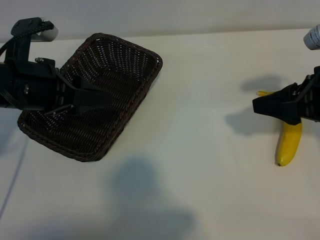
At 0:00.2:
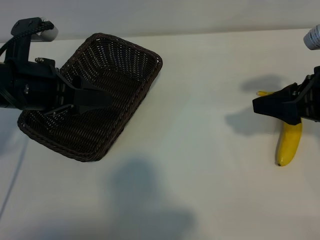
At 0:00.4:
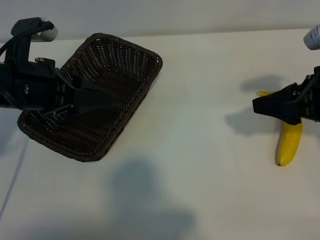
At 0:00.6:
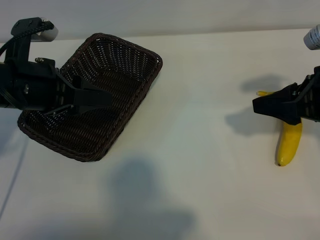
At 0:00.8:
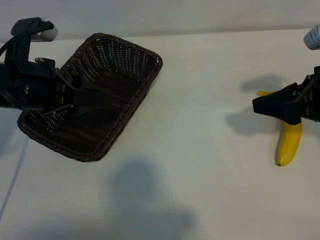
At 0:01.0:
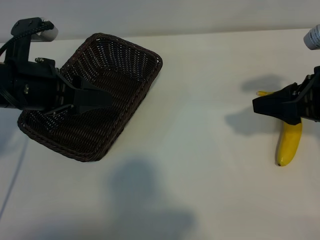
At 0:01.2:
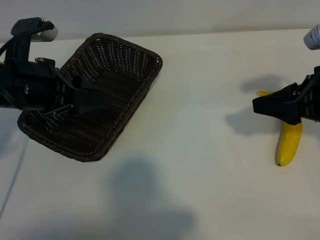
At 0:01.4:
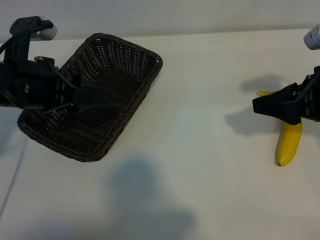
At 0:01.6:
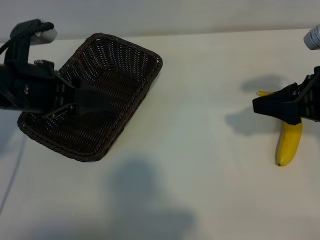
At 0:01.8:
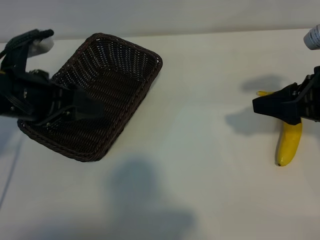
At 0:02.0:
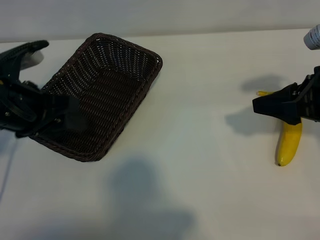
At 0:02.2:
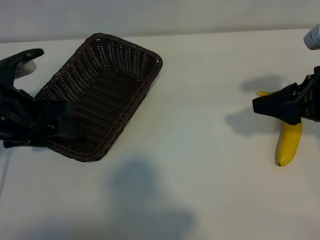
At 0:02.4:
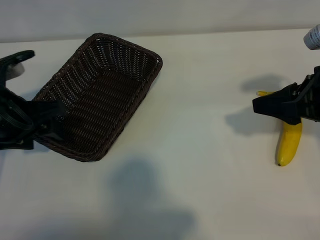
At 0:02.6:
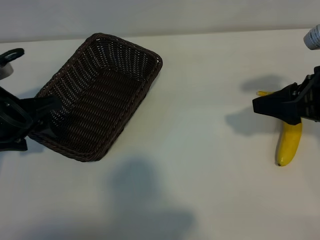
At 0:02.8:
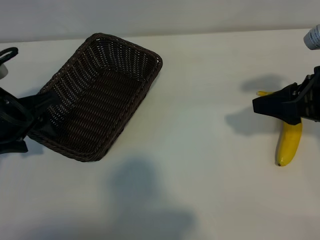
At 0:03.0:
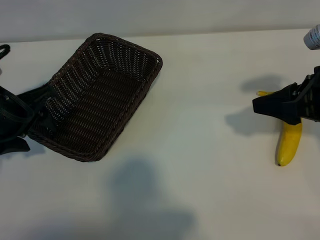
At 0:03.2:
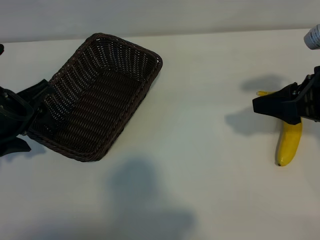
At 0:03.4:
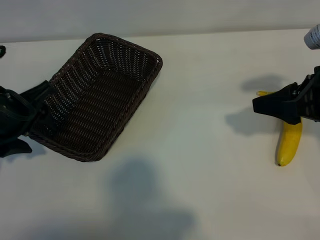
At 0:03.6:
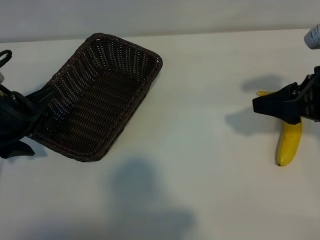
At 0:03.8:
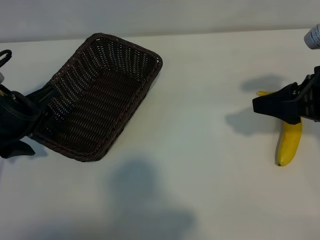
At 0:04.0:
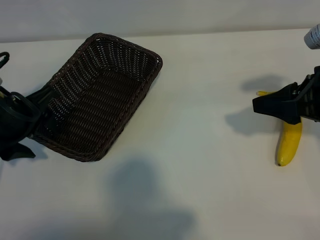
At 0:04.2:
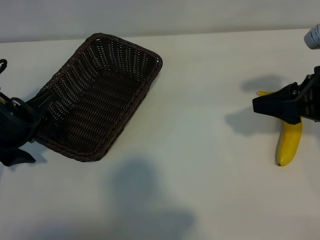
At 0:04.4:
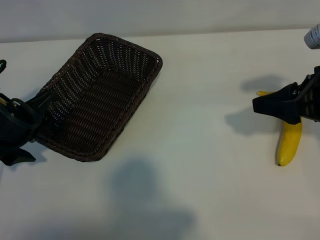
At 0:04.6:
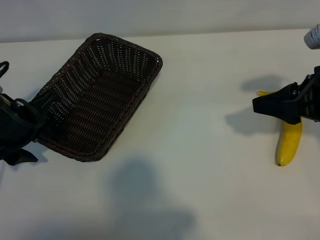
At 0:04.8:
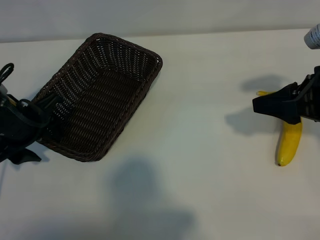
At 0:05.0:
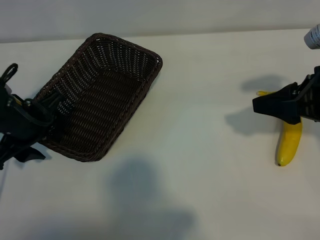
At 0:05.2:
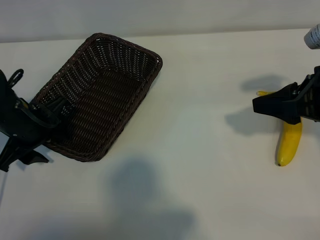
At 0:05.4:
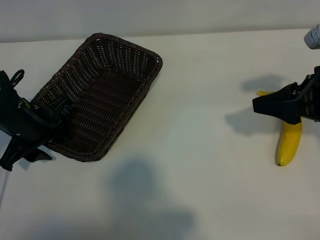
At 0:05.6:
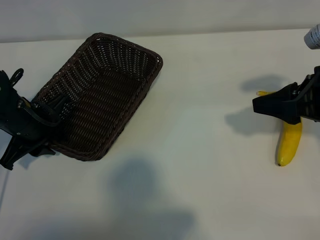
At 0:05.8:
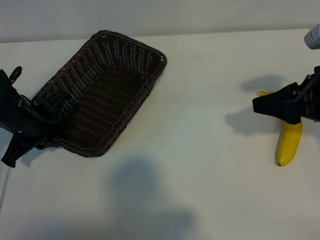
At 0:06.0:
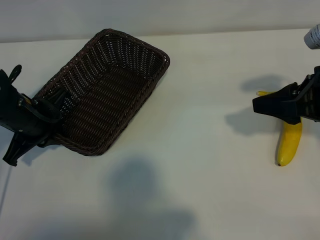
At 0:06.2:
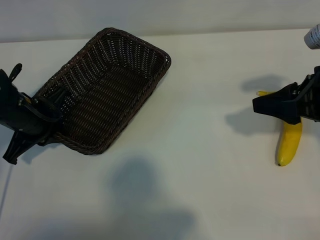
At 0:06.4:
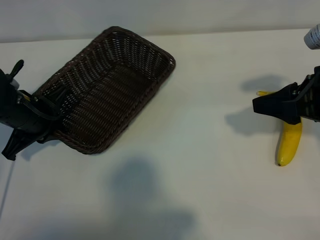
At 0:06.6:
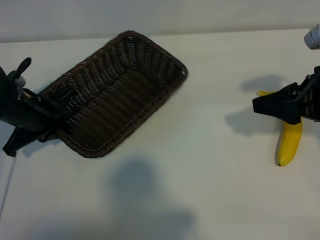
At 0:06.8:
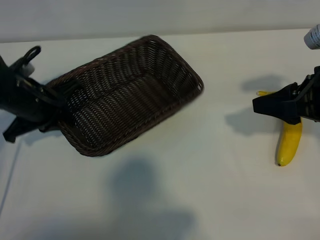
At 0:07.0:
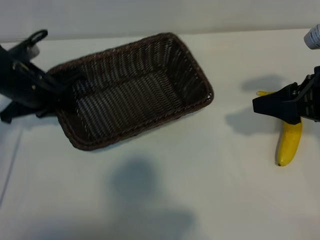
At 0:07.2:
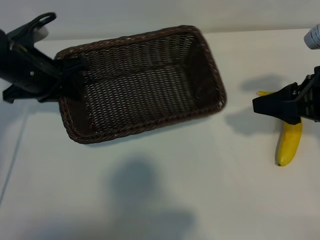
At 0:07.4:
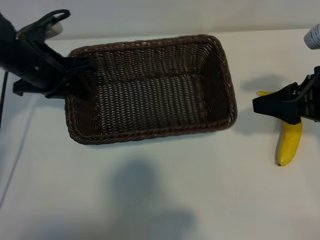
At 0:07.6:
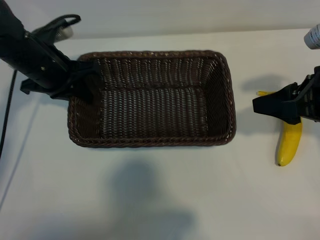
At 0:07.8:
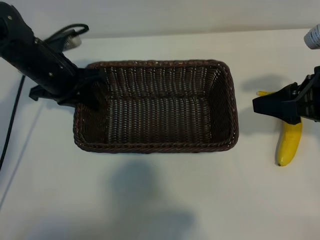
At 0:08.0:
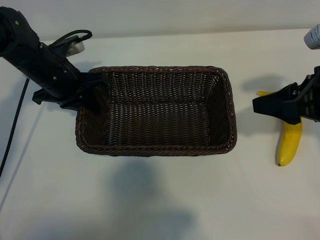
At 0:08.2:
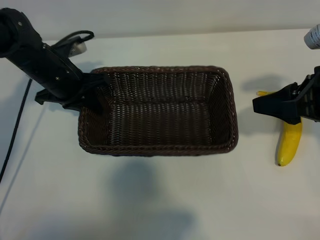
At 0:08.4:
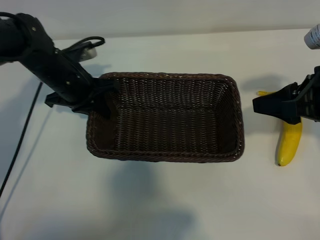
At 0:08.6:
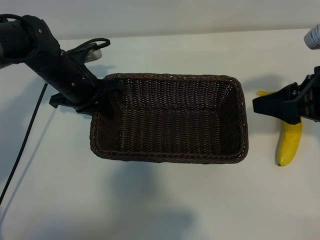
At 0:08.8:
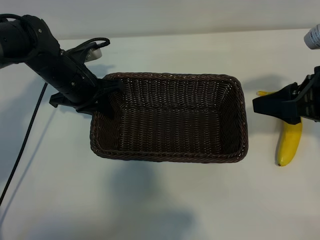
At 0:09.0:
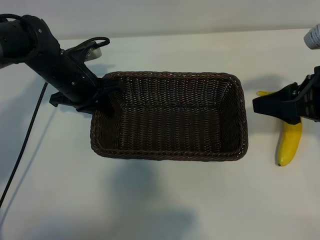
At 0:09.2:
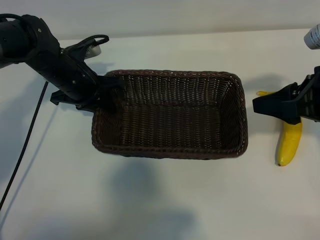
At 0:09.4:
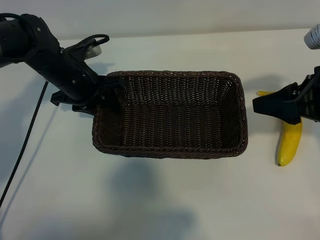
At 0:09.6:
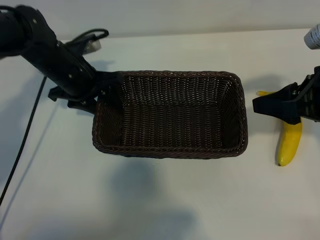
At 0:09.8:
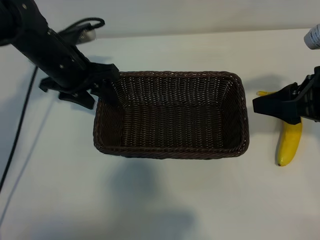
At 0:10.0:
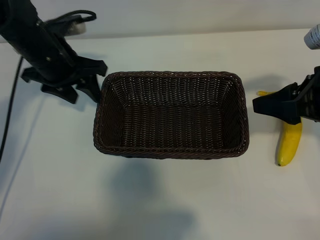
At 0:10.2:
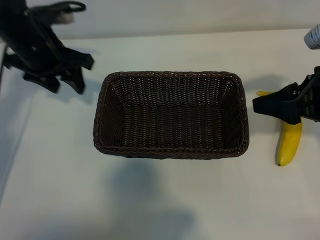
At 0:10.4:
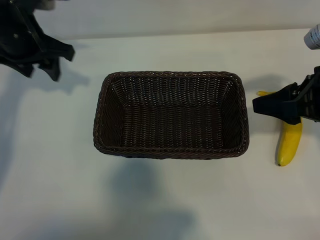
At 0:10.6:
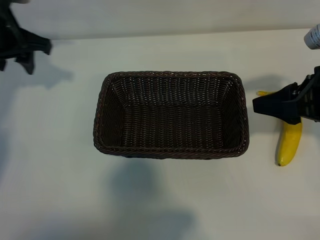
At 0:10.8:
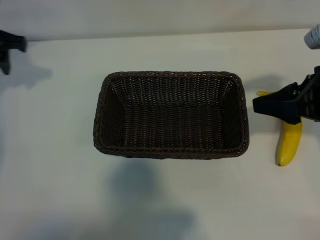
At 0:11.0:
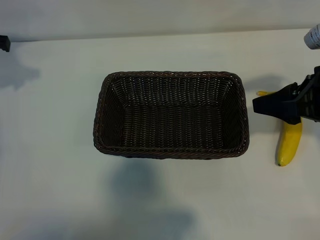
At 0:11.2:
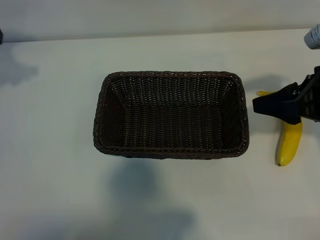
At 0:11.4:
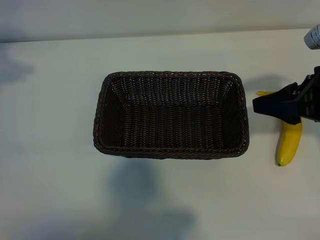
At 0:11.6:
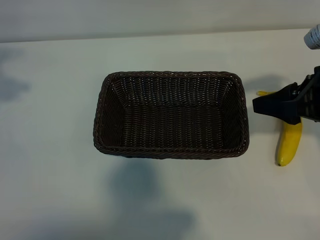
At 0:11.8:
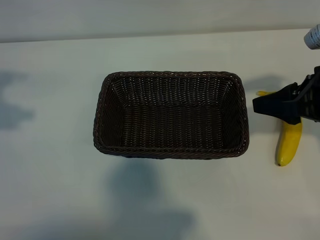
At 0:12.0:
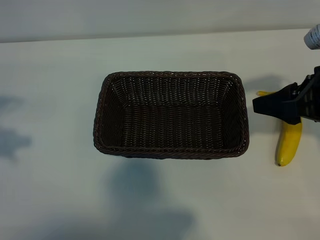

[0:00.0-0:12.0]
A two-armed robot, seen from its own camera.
Task of the whole recording: pick up the banana and put it into the basket.
Step, 0:01.4 to 0:06.2: Grasp the basket with the left gripper.
Step, 0:06.6 to 0:09.8: Place the basket in the center of the table with the left gripper.

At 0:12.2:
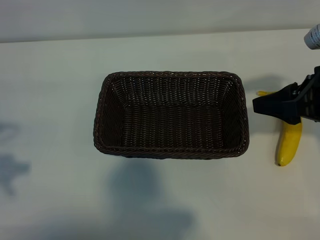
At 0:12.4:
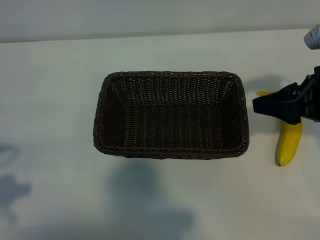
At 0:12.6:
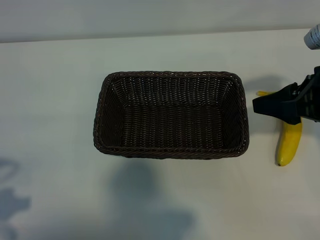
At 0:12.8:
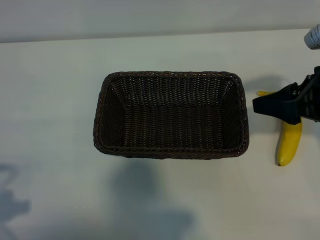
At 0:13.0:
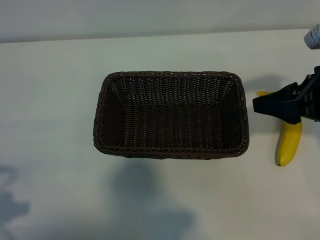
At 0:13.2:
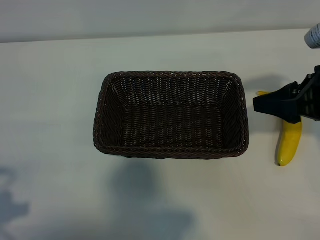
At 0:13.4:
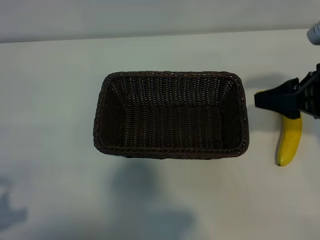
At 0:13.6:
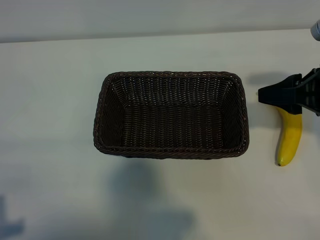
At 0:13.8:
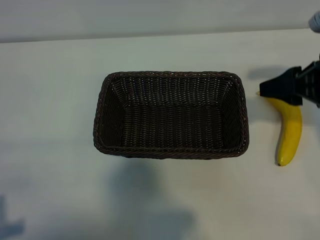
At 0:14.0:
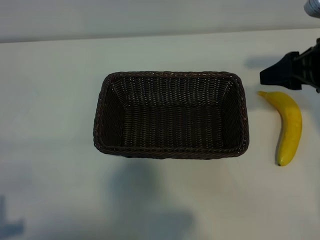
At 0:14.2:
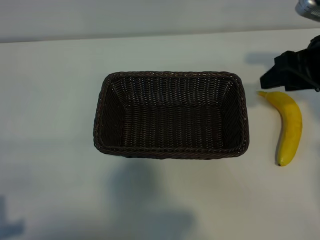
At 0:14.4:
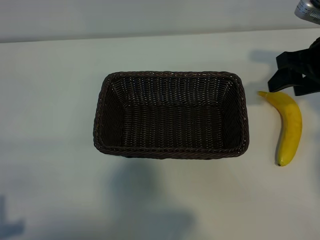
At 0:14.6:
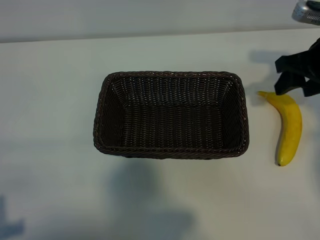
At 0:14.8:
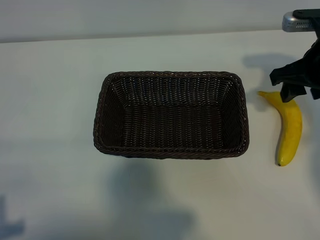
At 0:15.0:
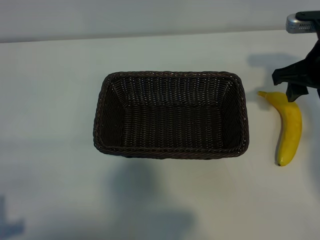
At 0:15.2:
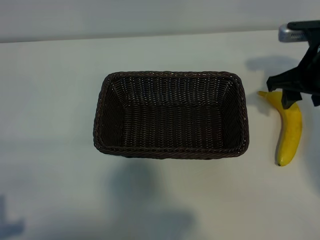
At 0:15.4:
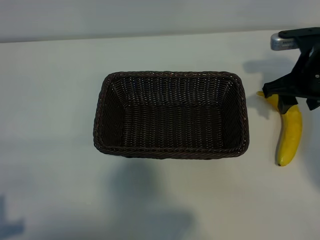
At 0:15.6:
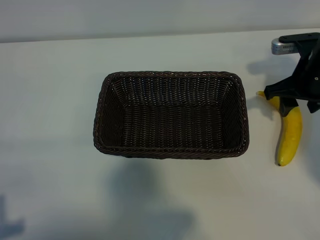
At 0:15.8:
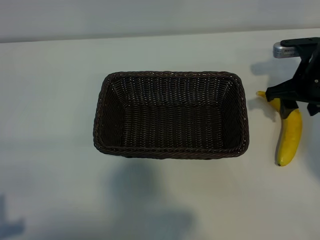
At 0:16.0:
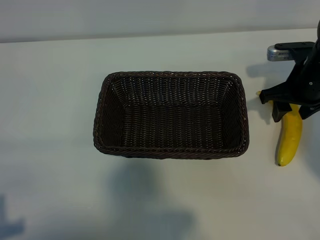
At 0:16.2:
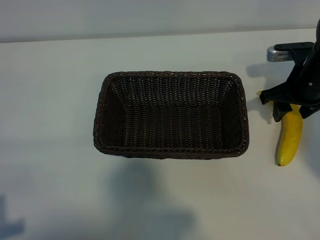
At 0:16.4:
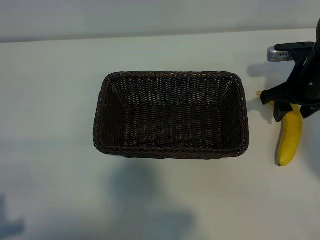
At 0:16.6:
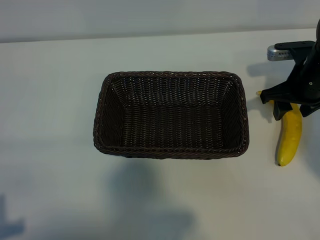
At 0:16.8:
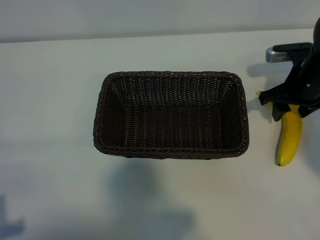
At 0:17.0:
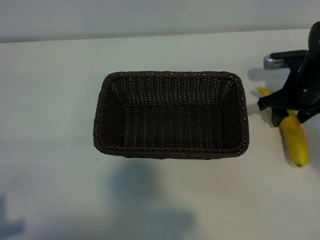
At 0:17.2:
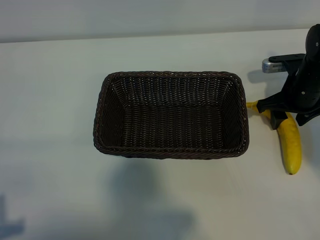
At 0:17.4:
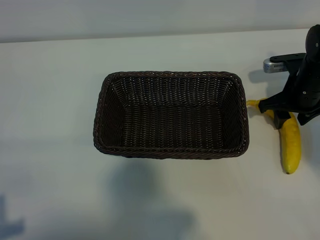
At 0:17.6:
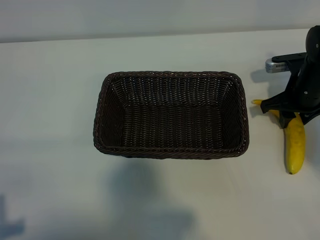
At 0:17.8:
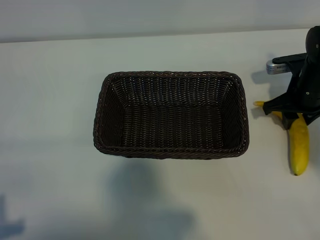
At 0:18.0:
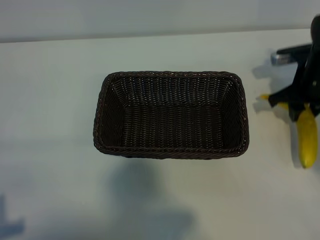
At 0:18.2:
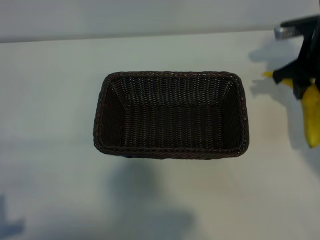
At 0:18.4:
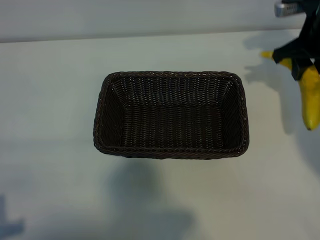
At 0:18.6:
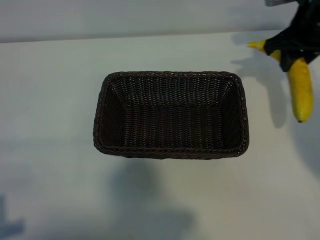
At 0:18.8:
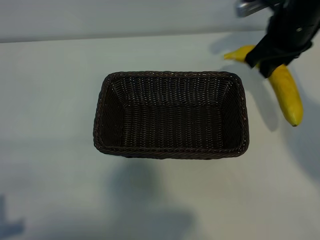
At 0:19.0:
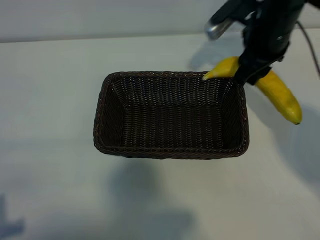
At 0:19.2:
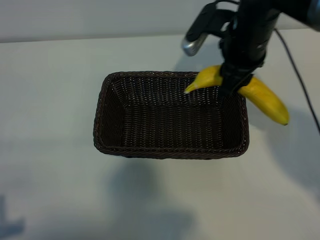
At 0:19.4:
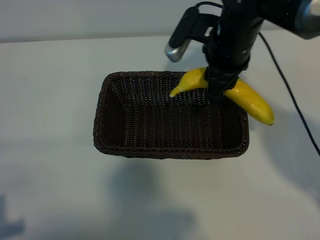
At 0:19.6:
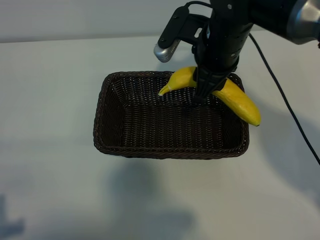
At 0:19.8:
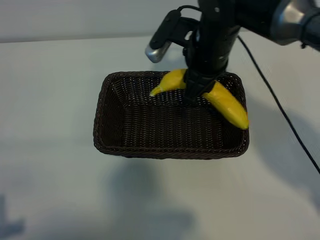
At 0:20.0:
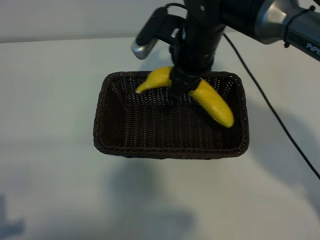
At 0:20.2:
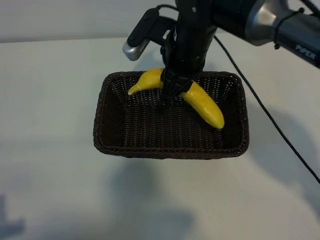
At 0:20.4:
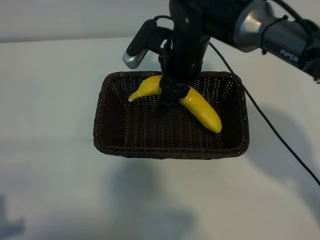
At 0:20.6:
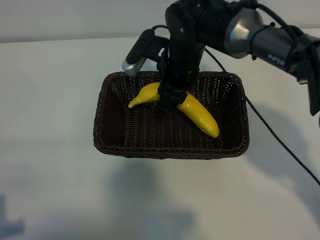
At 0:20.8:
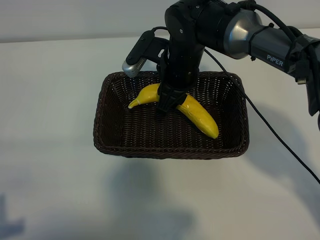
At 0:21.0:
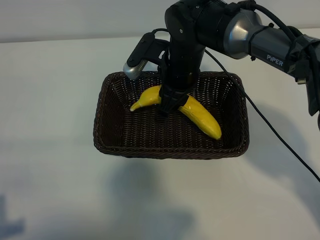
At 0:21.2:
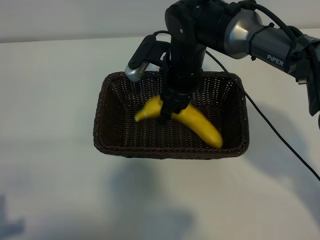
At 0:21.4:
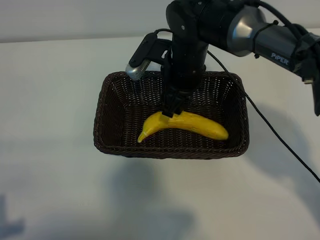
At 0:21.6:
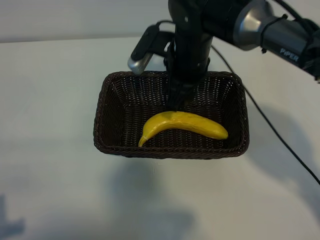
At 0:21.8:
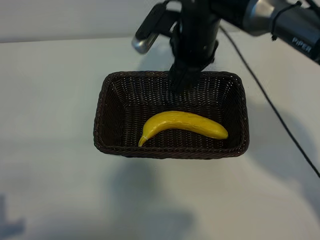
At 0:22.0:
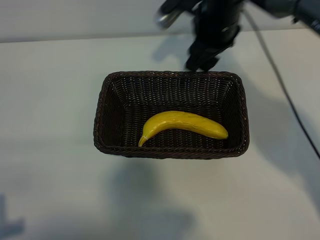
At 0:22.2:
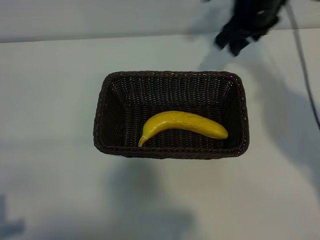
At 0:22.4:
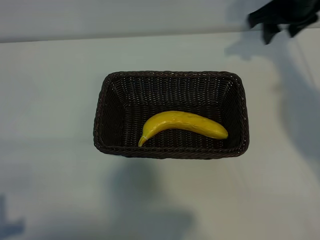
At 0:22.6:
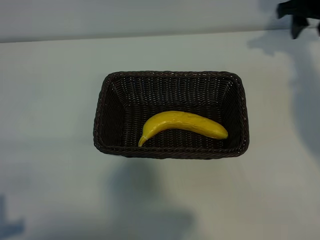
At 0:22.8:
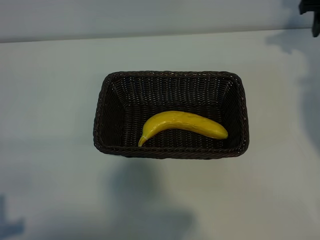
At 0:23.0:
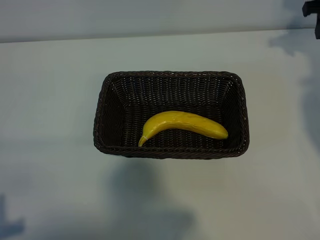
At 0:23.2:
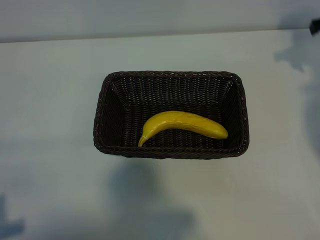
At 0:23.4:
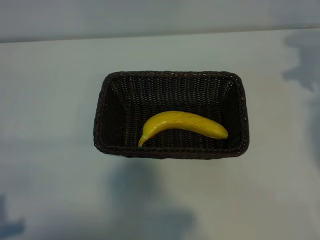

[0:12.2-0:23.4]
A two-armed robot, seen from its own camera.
Task of the whole recording: pick up the banana and put it into the basket.
Step, 0:12.2 to 0:17.6: Grasp the banana with right gripper.
Step, 0:17.8 to 0:21.8: Place the banana in the basket with right gripper.
